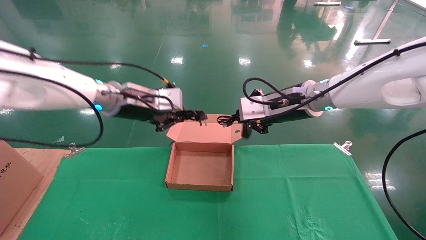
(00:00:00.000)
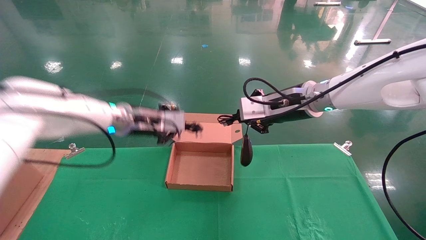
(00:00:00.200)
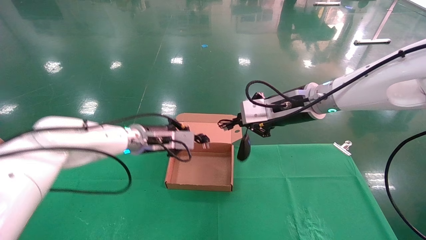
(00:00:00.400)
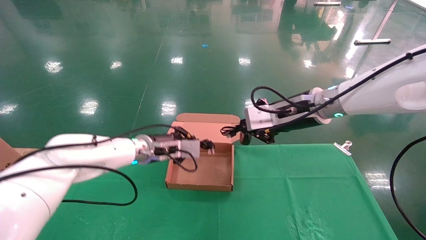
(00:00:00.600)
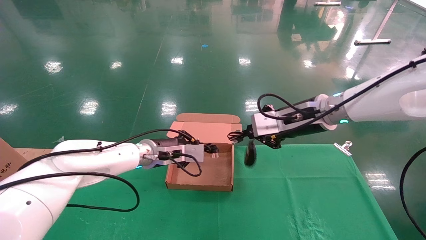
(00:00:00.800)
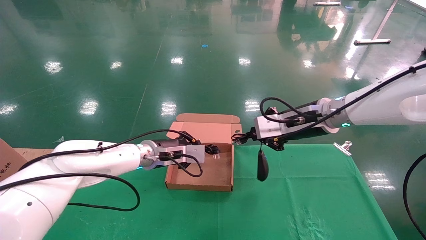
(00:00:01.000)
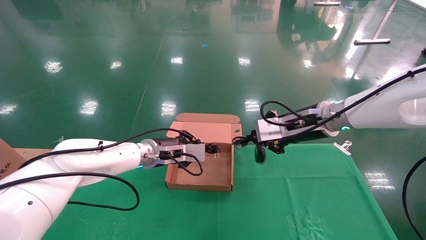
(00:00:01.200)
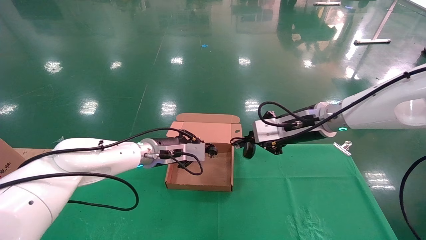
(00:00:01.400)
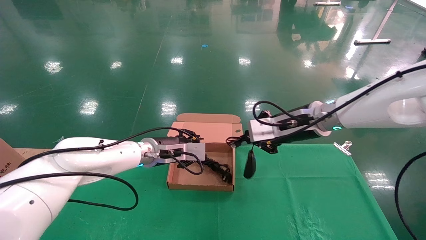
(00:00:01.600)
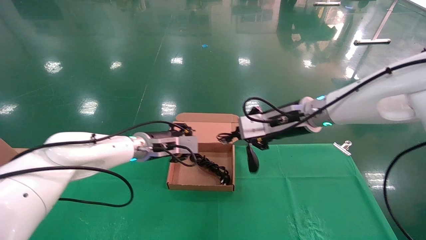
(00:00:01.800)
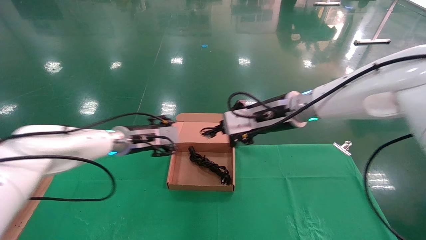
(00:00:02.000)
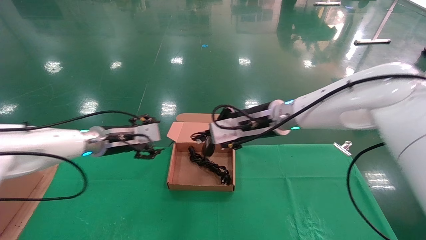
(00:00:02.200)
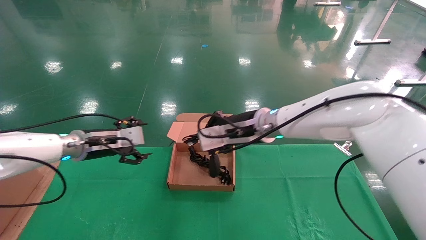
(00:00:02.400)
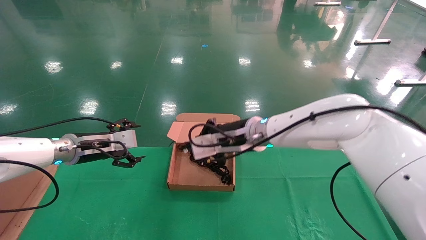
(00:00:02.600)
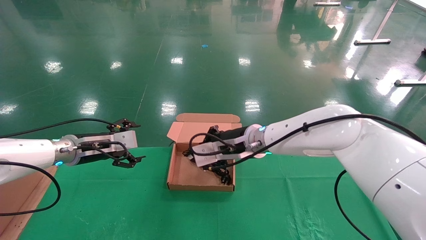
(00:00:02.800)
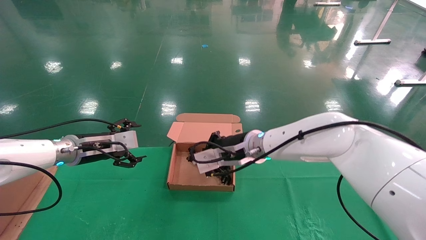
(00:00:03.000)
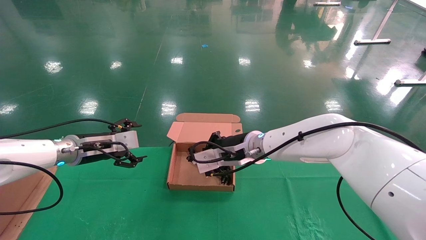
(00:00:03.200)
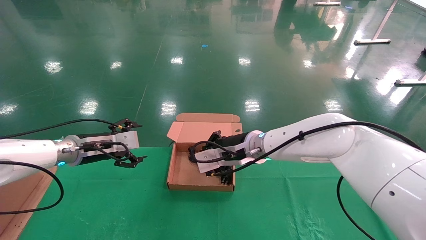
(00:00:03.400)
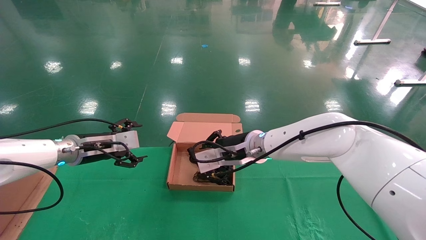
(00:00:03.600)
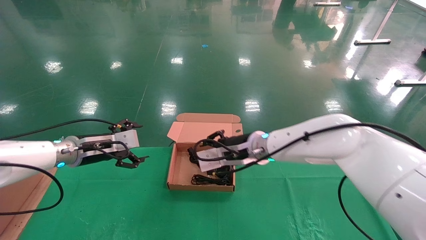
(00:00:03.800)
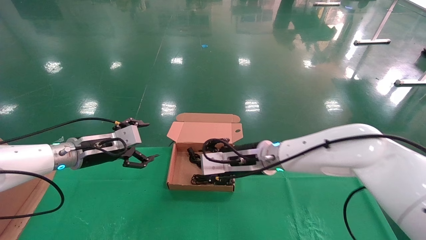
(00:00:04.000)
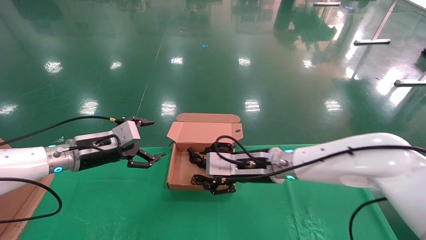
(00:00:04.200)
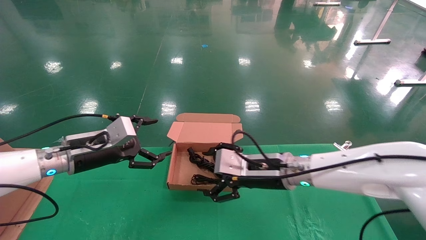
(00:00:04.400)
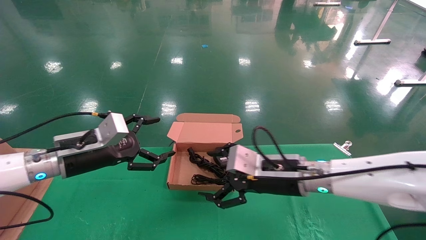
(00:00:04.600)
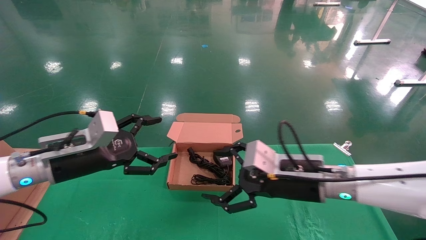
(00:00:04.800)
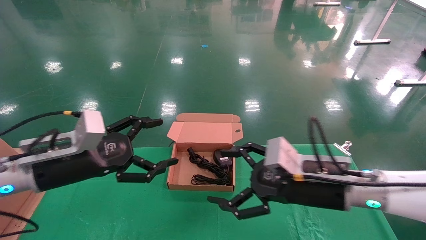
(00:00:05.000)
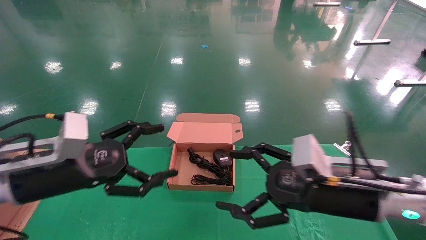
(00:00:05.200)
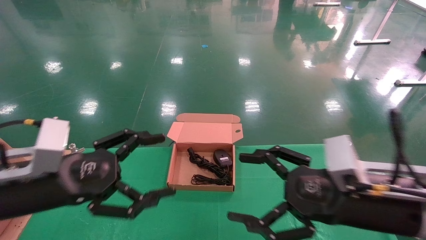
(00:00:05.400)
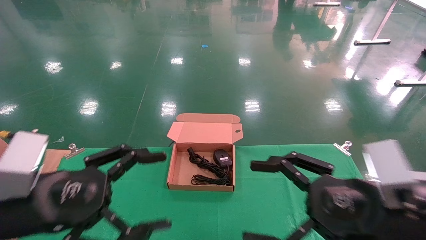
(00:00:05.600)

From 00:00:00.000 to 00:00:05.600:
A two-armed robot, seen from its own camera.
Step, from 00:00:00.000 to 00:00:03.800: Place the mouse and power cord into the box.
From 00:00:00.000 to 00:00:01.400: The left gripper heads downward, covering approximately 10 cm.
From 00:00:01.400 to 00:00:02.800: The left gripper shifts about 15 cm to the left, and opens up, while the right gripper moves to the left and downward, some 15 cm.
From 00:00:02.800 to 00:00:04.200: The right gripper changes place by approximately 5 cm, and opens up.
From 00:00:04.200 to 00:00:05.600: The left gripper is displaced backward by about 20 cm, while the right gripper travels backward and to the right by approximately 25 cm, and opens its fingers.
